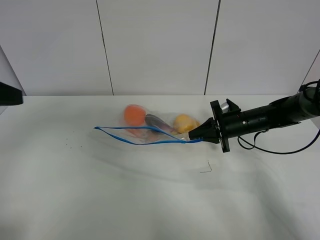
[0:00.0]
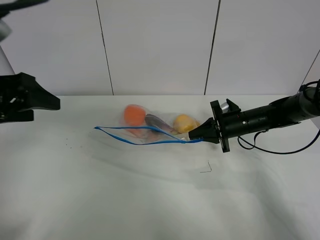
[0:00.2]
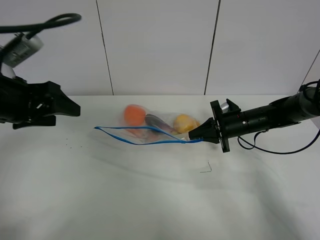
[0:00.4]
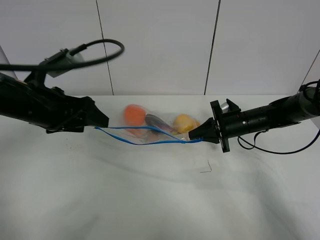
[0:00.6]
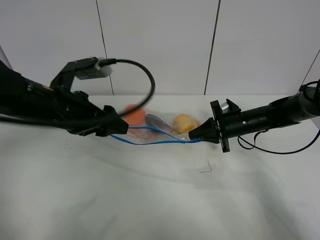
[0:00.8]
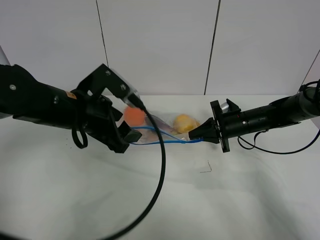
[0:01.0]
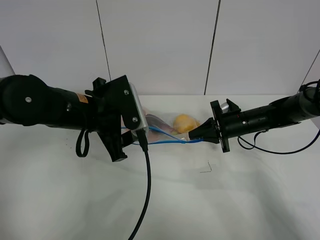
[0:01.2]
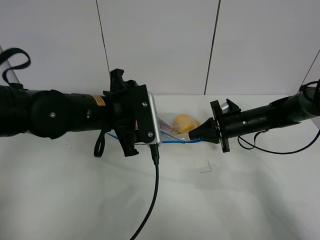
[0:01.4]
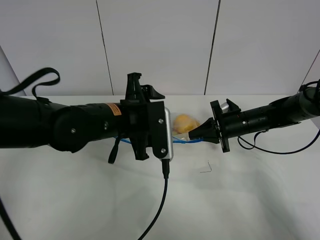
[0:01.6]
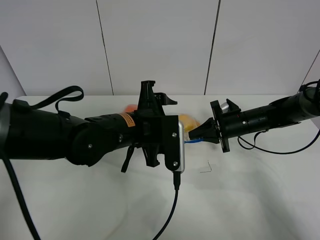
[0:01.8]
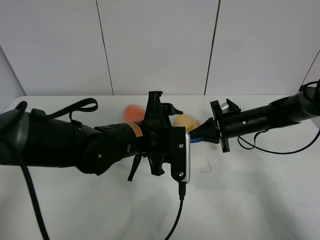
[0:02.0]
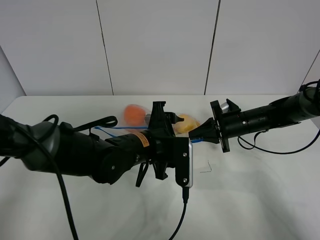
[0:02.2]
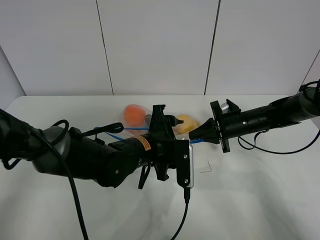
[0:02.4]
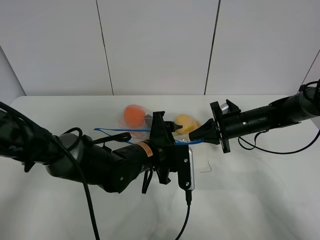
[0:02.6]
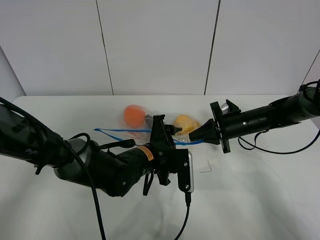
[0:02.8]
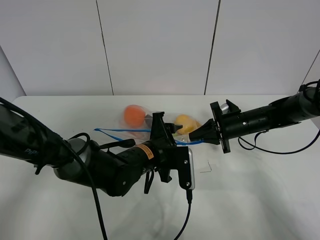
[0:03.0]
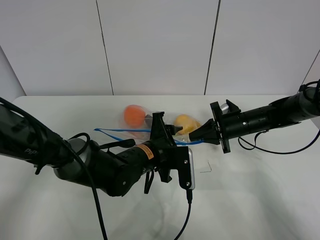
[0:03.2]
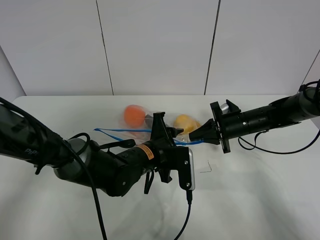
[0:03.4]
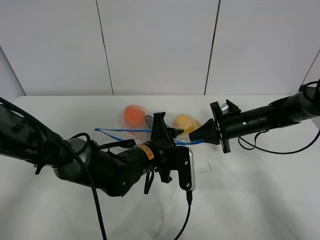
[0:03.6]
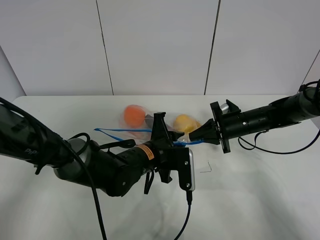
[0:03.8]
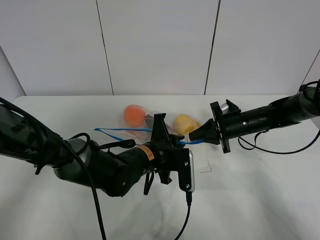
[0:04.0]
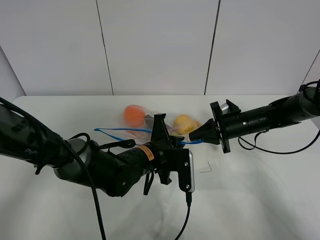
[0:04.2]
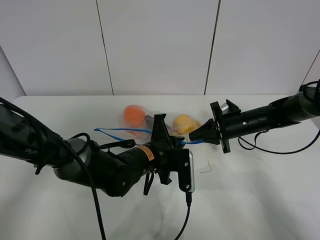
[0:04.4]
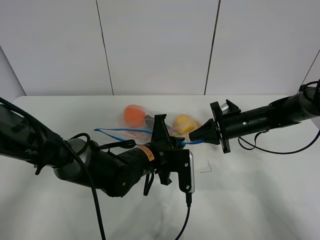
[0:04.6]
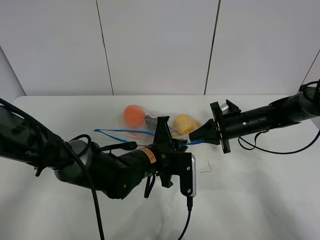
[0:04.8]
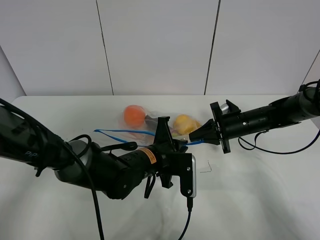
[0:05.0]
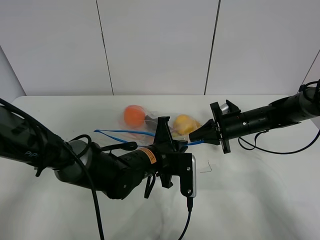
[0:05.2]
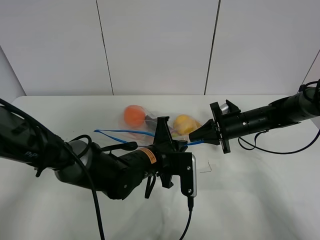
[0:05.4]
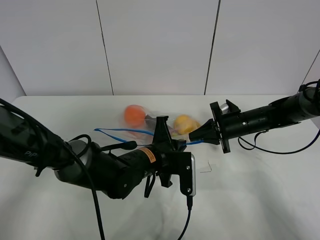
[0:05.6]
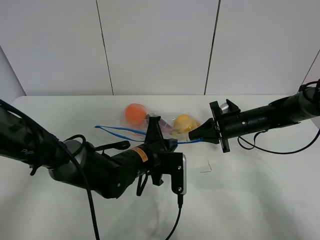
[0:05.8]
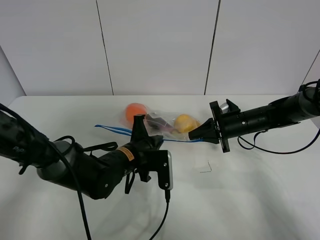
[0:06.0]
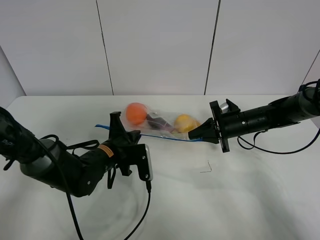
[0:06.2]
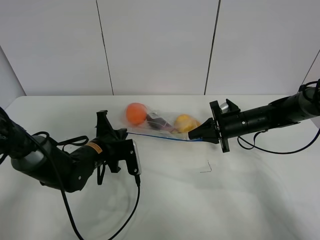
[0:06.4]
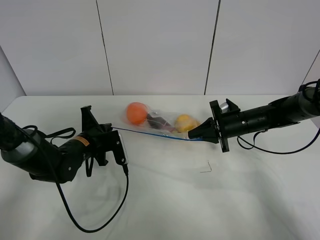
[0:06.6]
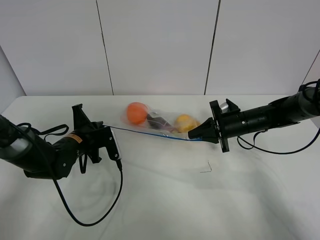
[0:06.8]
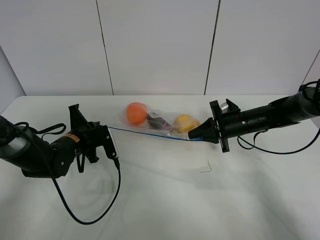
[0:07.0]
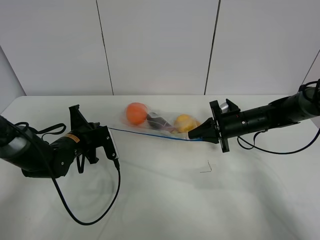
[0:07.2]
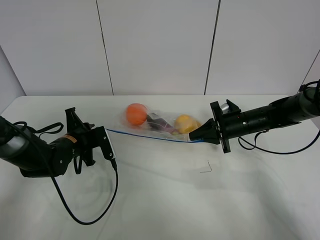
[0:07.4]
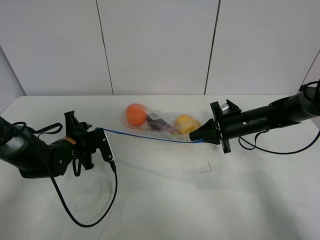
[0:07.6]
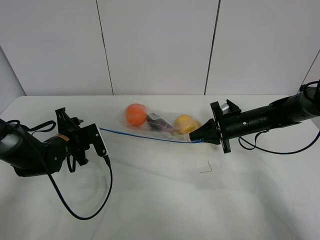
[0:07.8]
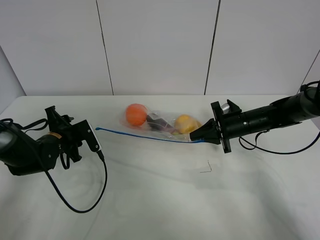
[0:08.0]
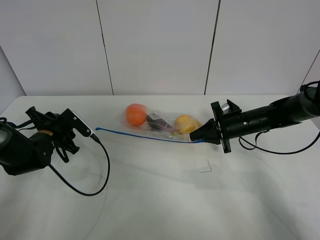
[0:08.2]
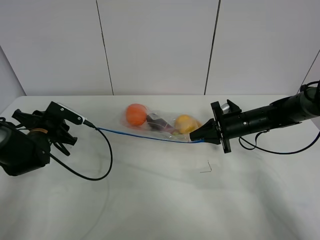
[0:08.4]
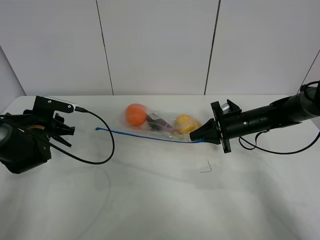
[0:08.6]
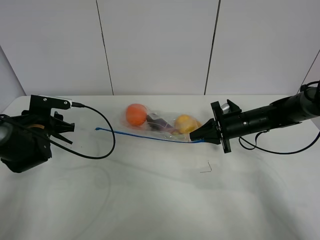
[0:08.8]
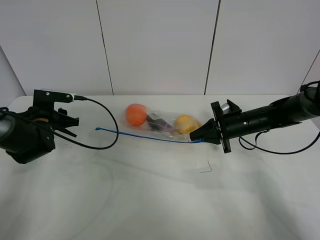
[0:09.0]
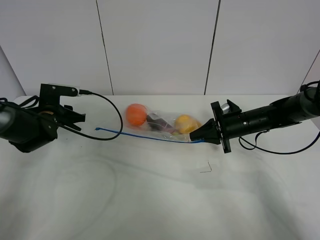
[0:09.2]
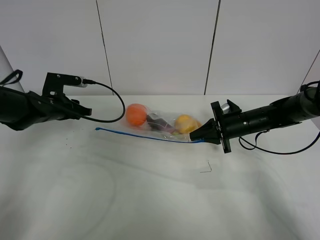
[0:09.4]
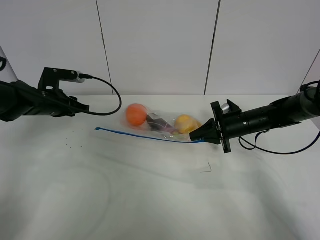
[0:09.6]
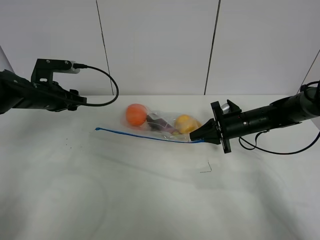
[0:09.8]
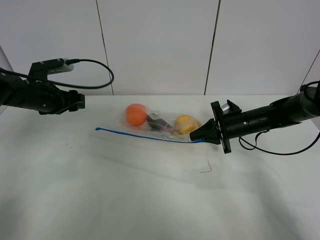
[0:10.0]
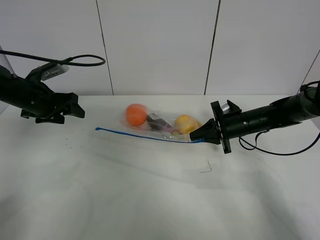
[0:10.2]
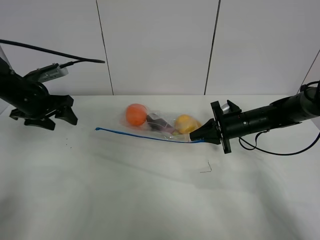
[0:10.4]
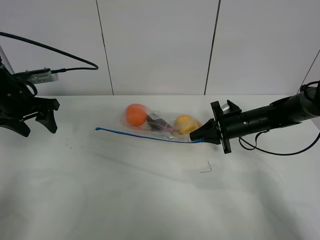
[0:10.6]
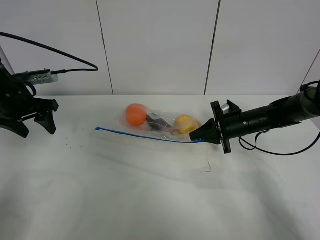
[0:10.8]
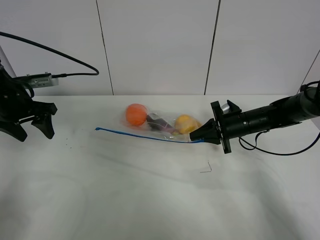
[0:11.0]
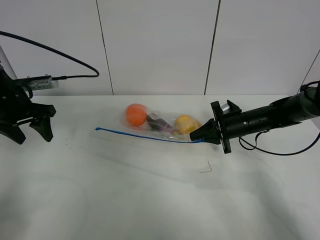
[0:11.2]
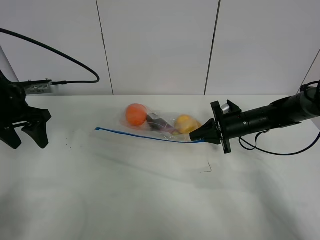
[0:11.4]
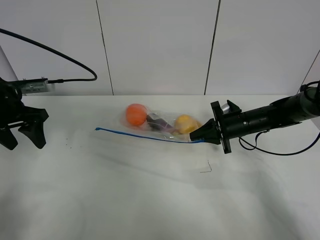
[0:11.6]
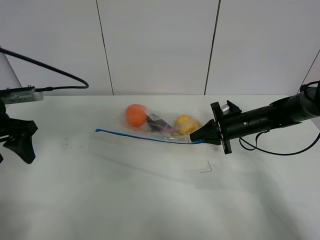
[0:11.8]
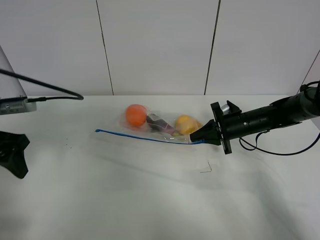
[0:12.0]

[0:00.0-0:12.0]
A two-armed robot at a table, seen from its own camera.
Step, 0:00.0 to 0:07.6: Pull the fruit bag with left gripper.
0:00.0 to 0:01.6: The left gripper heads to the right, downward and forward, covering roughly 25 cm.
0:01.6 to 0:03.0: The left gripper is displaced downward by about 10 cm.
0:03.0 to 0:04.4: The left gripper closes its fingers.
0:04.4 to 0:06.0: The left gripper travels to the left by some 5 cm.
0:06.0 to 0:07.6: The left gripper goes about 15 cm to the left, and opens its fingers.
0:07.6 to 0:09.0: The left gripper goes about 5 cm to the left.
0:09.0 to 0:10.4: The left gripper is displaced upward by roughly 10 cm.
0:10.4 to 0:12.0: The left gripper travels backward by about 15 cm.

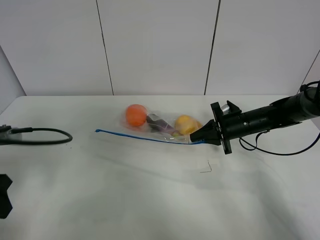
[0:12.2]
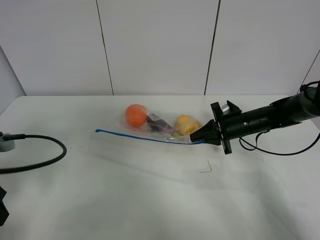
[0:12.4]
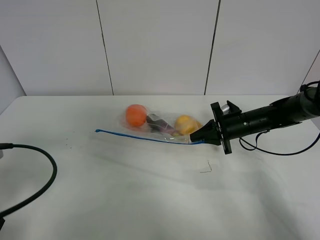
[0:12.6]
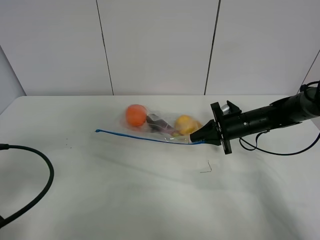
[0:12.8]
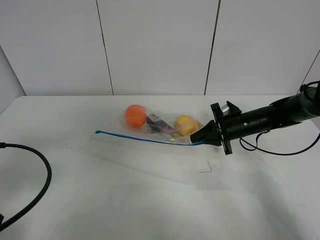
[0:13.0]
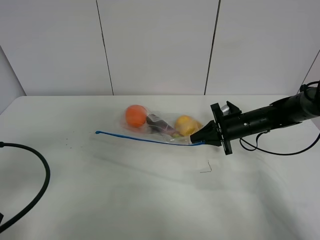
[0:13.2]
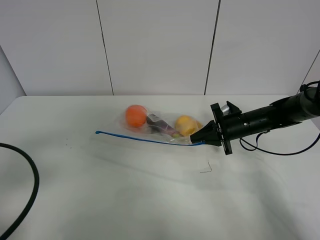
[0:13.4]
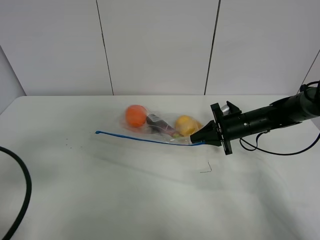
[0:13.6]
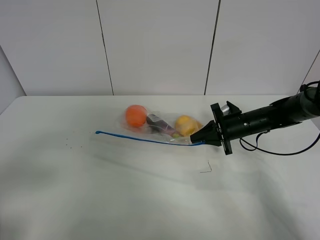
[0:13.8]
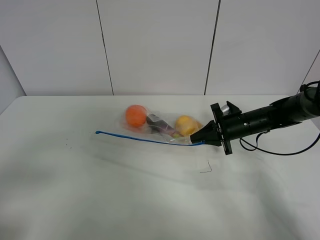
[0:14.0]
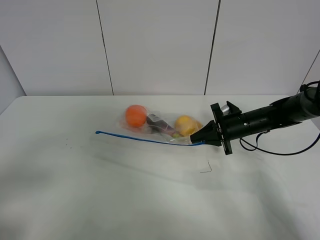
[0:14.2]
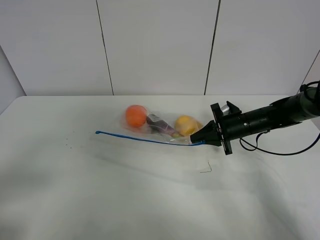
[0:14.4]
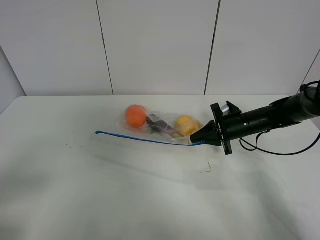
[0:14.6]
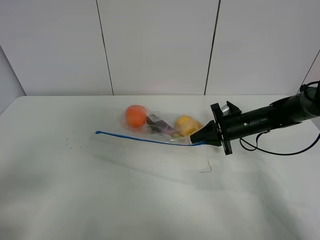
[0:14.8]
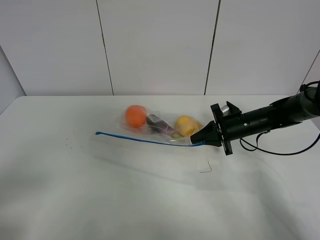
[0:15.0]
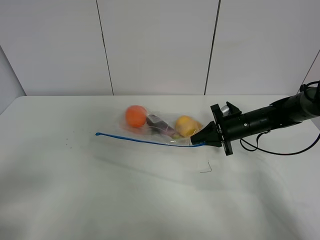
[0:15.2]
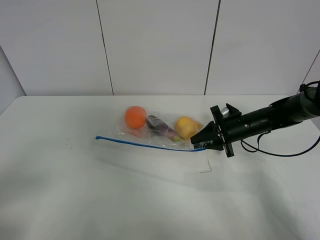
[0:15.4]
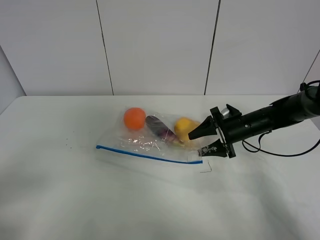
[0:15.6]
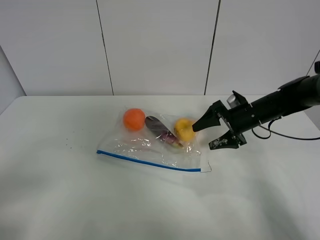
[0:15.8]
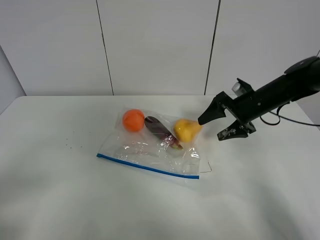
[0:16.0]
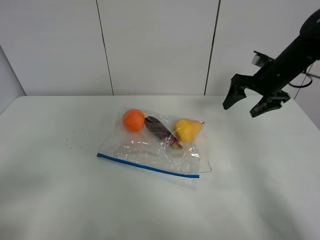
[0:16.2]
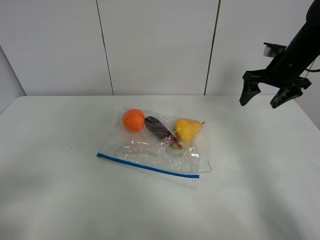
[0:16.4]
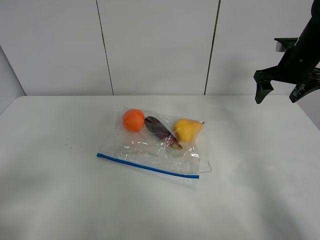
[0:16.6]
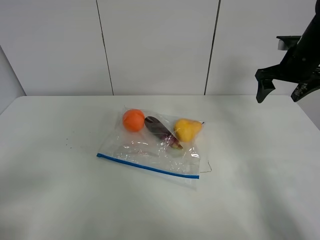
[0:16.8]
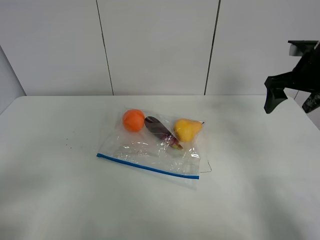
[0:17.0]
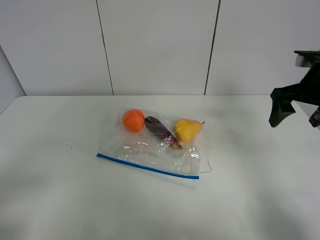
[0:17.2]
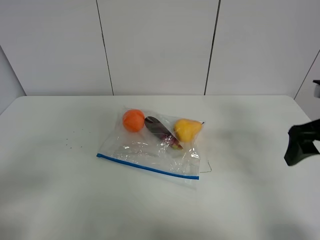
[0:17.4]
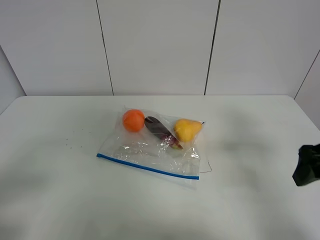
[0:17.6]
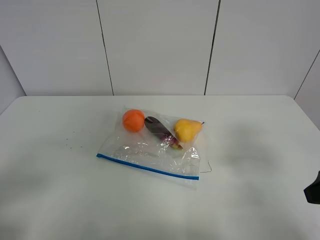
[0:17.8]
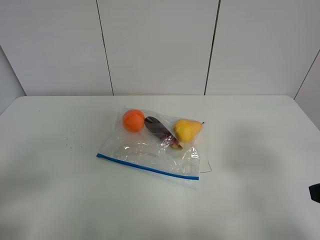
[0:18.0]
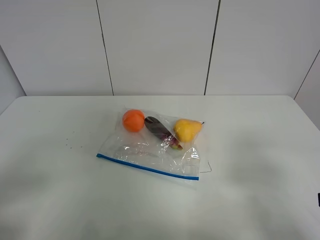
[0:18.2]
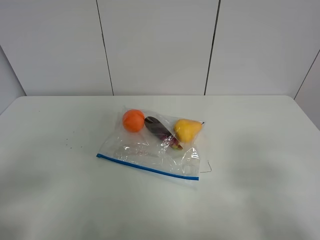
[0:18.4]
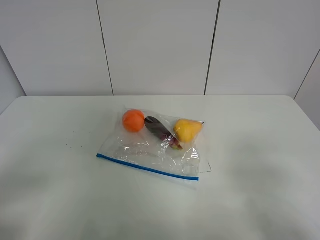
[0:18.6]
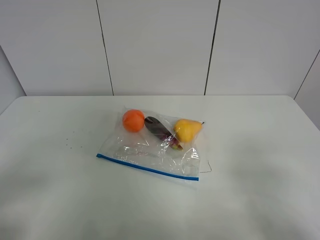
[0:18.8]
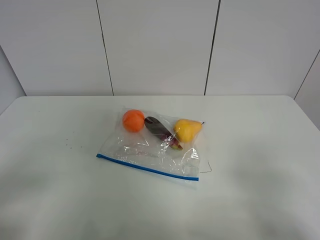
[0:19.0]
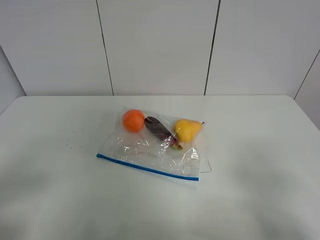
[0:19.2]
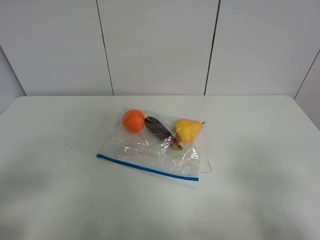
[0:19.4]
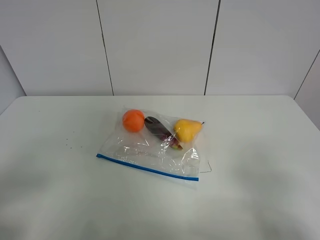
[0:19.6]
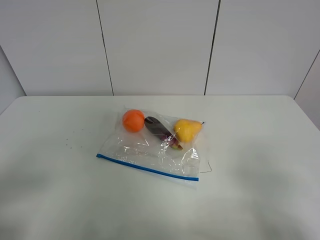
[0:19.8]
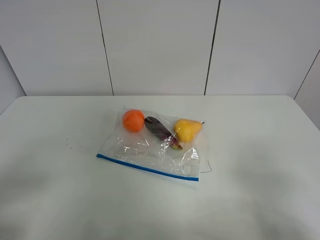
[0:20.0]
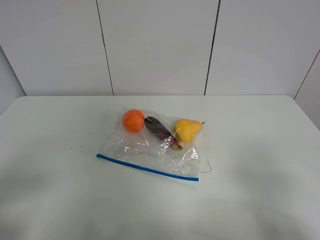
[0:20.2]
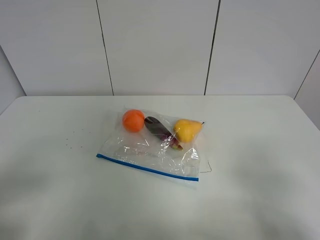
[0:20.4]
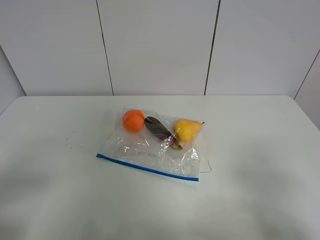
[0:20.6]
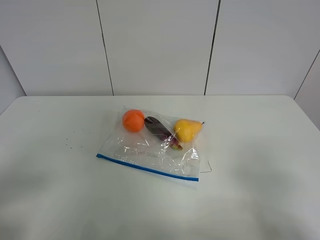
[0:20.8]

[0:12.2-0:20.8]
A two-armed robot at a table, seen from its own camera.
Step, 0:12.2 to 0:15.8: Place the fruit bag with right gripper.
0:12.2 to 0:13.6: The left gripper is displaced backward by roughly 10 cm.
0:13.6 to 0:15.0: The left gripper is displaced backward by approximately 5 cm.
0:15.0 to 0:16.6: The right gripper moves upward and to the right, approximately 20 cm, and opens its fingers.
0:16.6 to 0:18.0: The right gripper is displaced backward by roughly 30 cm.
0:18.0 to 0:19.4: The right gripper shifts some 10 cm backward.
0:19.4 to 0:20.8: Both grippers stay about where they are.

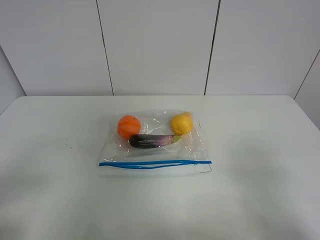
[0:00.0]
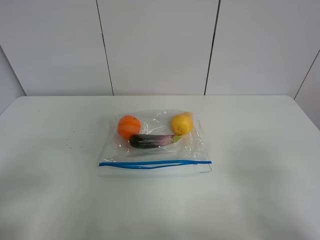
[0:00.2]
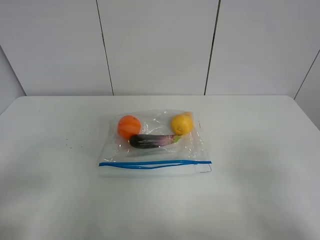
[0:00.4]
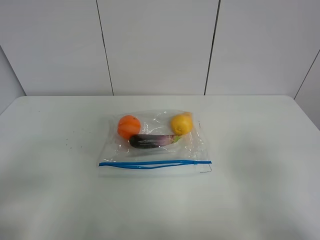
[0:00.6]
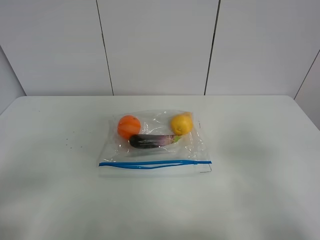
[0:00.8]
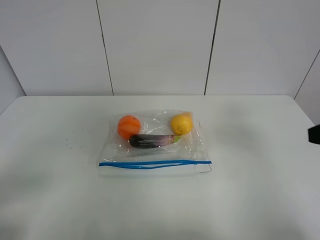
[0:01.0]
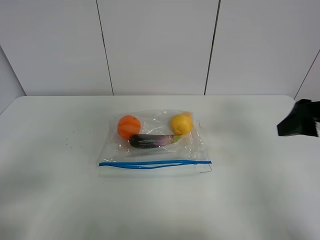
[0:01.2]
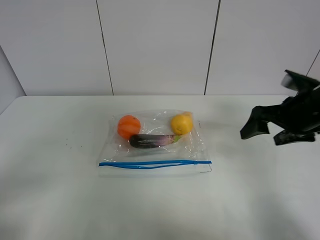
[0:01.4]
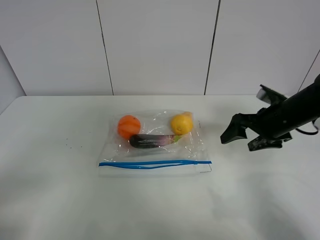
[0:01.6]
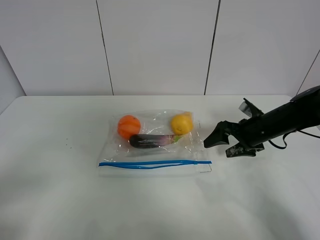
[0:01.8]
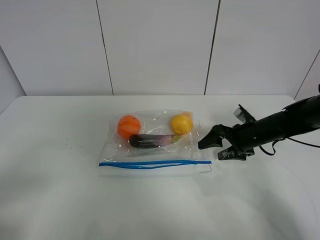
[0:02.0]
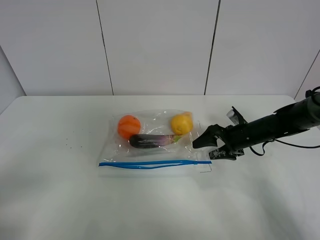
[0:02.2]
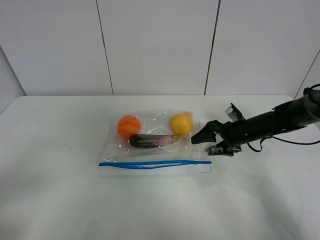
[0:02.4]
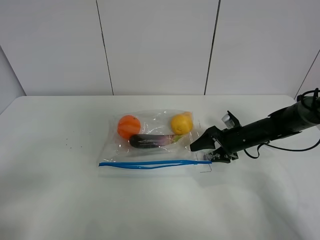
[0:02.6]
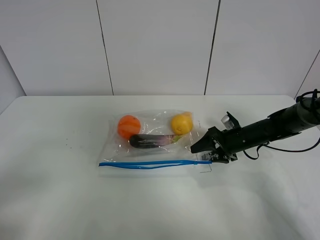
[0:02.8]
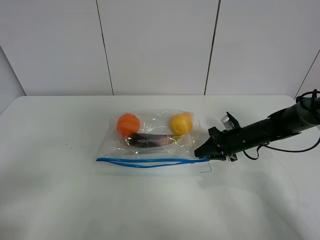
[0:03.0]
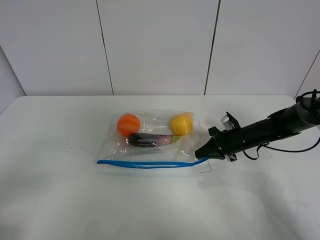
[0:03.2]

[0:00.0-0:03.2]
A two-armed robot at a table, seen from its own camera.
Step, 0:00.0 to 0:03.2: Grasp the fruit bag with right gripper.
0:00.0 to 0:01.6: The right gripper shifts about 30 cm forward.
0:01.6 to 0:03.2: The right gripper heads downward, covering some 10 cm, and closes.
